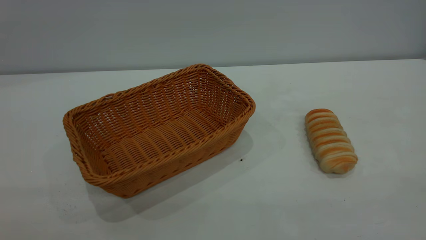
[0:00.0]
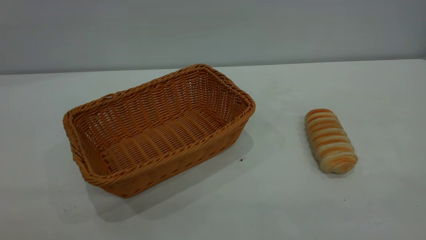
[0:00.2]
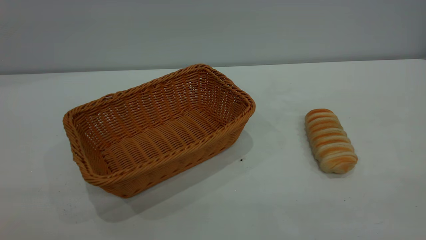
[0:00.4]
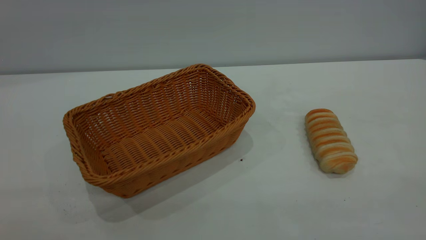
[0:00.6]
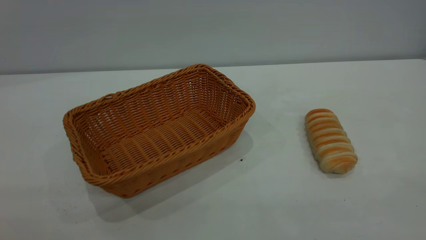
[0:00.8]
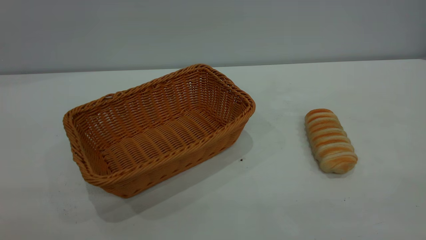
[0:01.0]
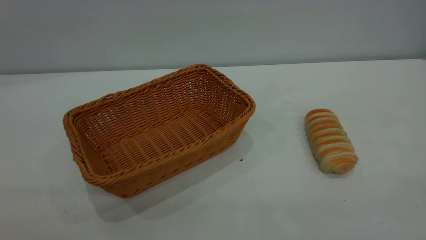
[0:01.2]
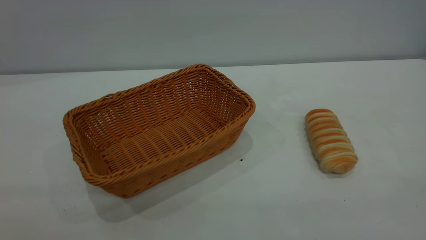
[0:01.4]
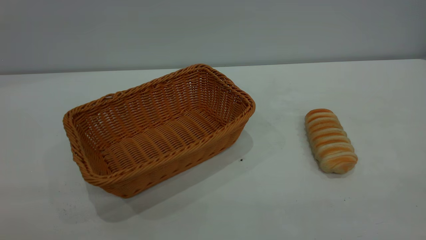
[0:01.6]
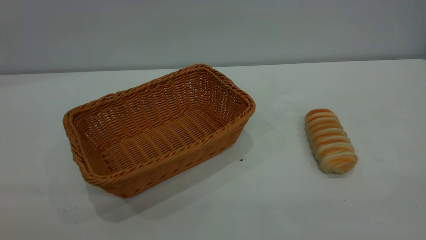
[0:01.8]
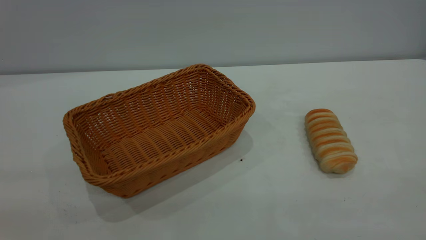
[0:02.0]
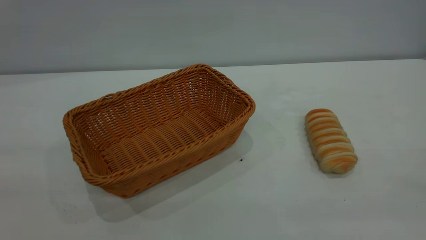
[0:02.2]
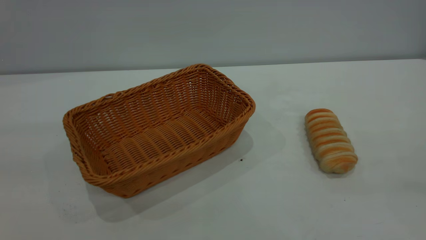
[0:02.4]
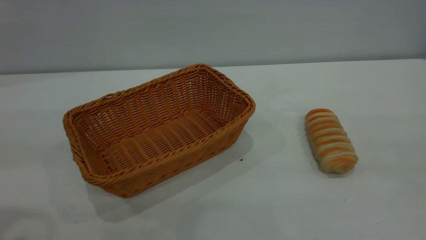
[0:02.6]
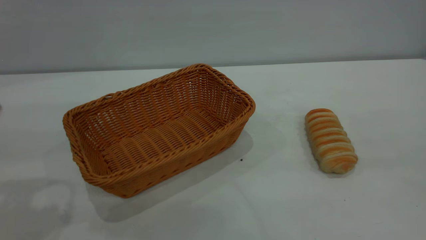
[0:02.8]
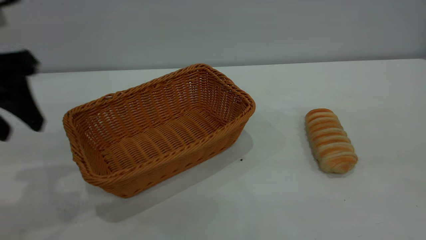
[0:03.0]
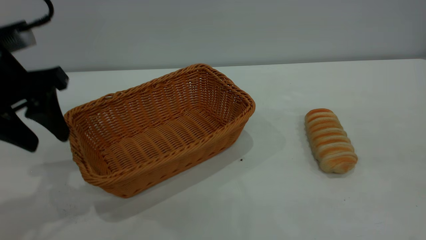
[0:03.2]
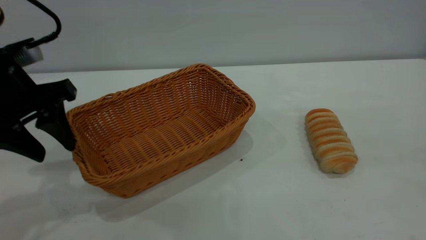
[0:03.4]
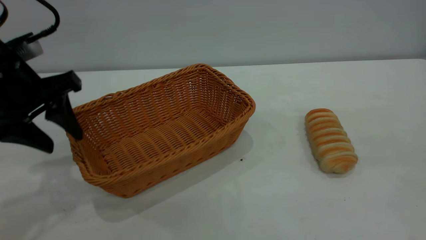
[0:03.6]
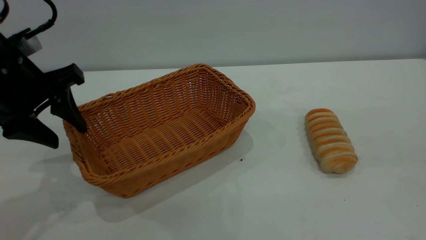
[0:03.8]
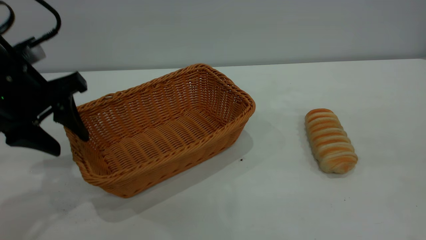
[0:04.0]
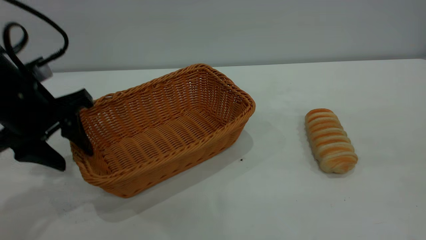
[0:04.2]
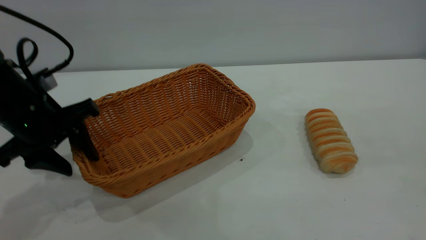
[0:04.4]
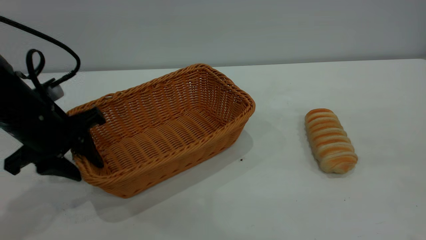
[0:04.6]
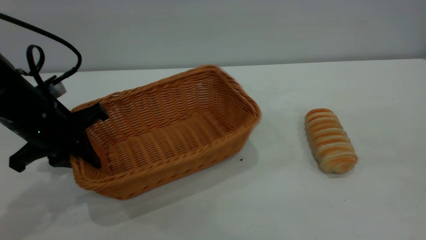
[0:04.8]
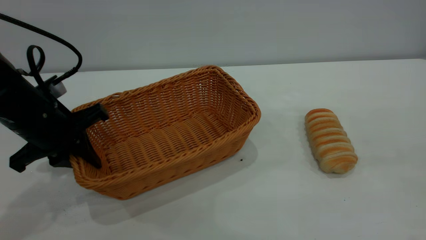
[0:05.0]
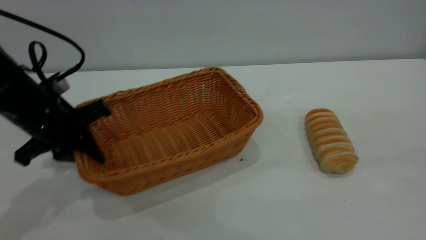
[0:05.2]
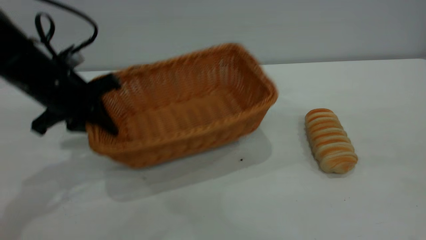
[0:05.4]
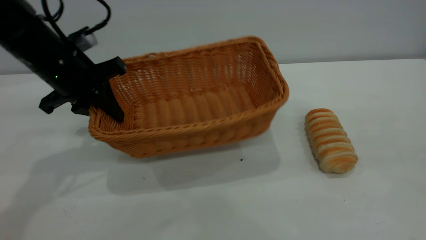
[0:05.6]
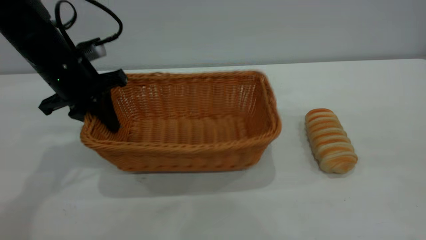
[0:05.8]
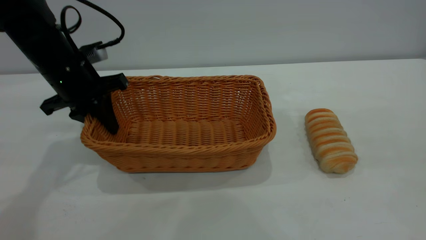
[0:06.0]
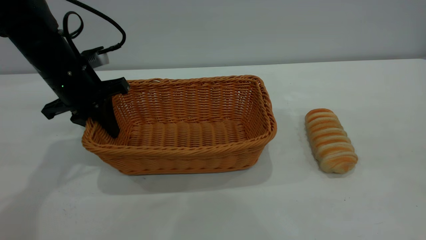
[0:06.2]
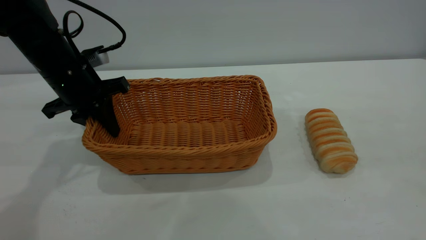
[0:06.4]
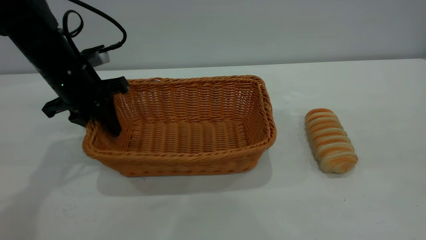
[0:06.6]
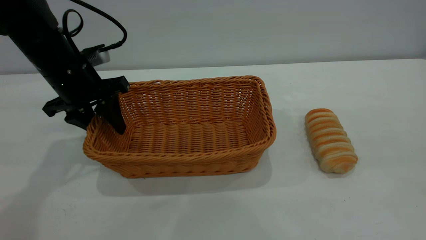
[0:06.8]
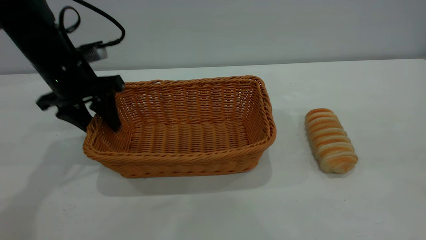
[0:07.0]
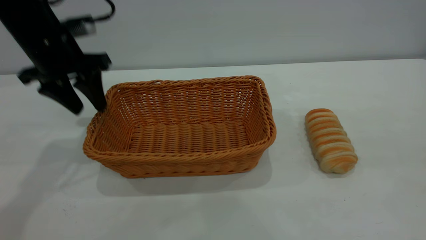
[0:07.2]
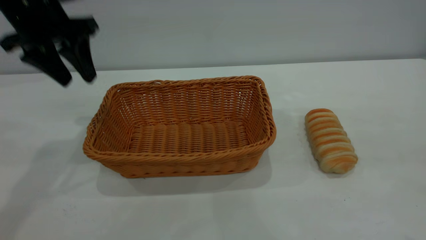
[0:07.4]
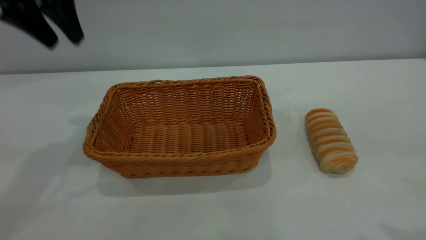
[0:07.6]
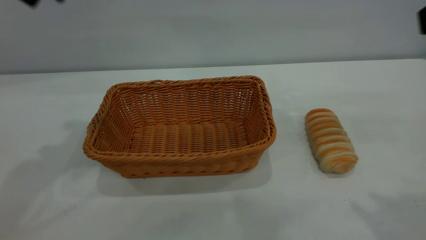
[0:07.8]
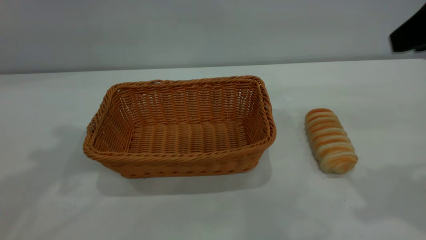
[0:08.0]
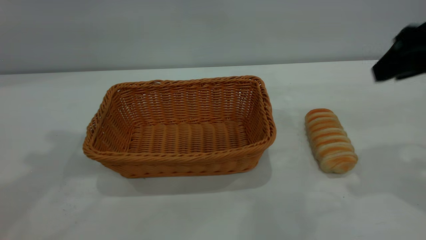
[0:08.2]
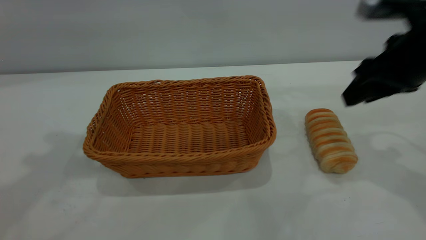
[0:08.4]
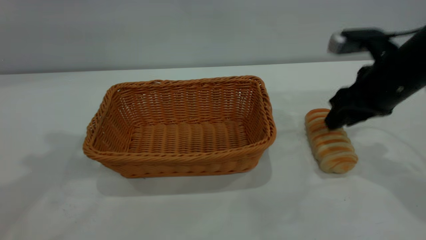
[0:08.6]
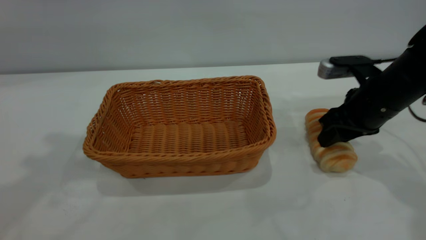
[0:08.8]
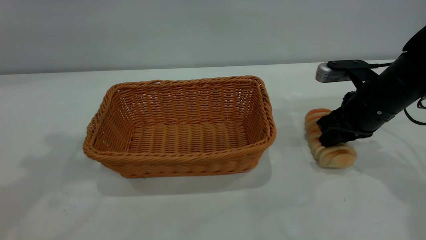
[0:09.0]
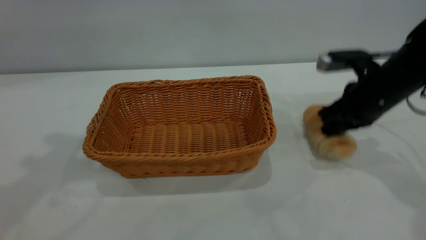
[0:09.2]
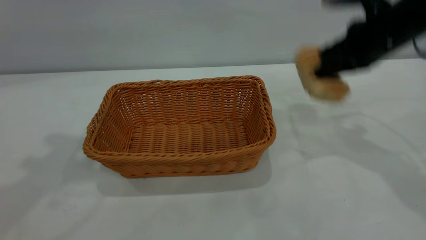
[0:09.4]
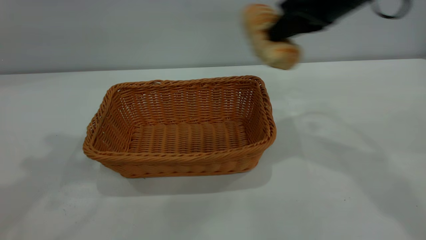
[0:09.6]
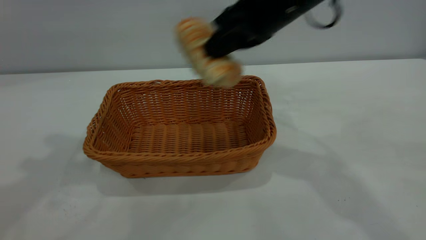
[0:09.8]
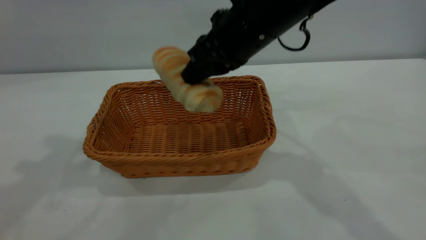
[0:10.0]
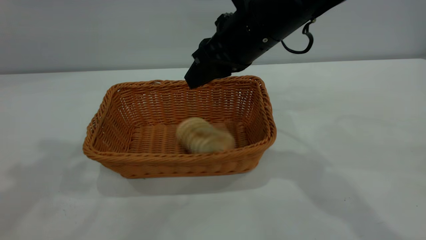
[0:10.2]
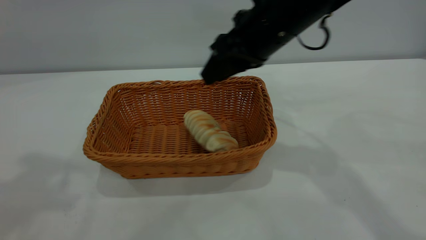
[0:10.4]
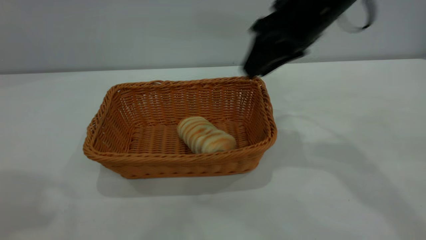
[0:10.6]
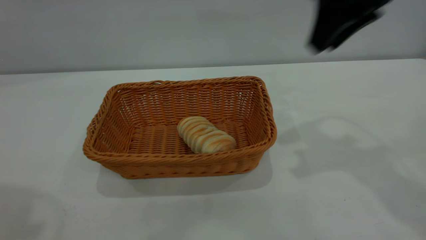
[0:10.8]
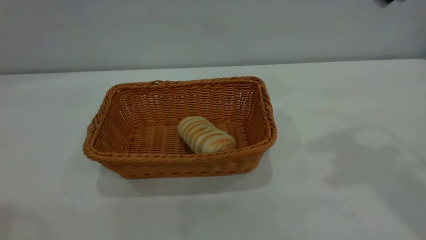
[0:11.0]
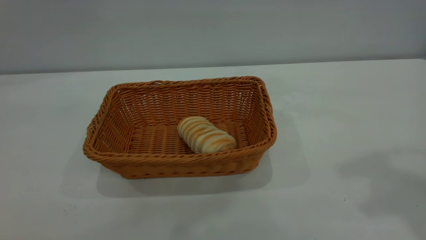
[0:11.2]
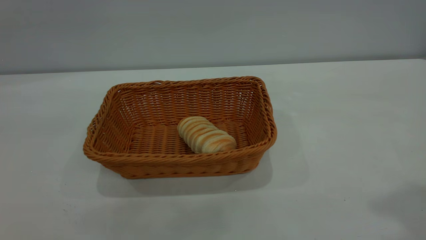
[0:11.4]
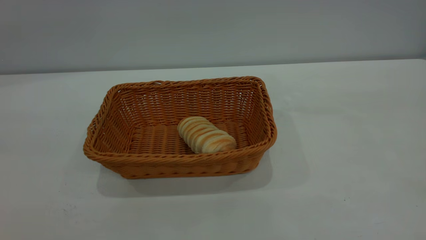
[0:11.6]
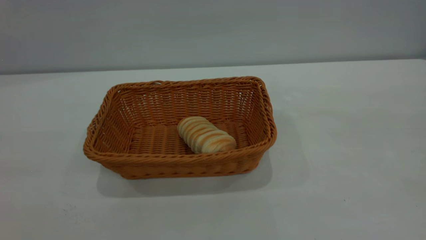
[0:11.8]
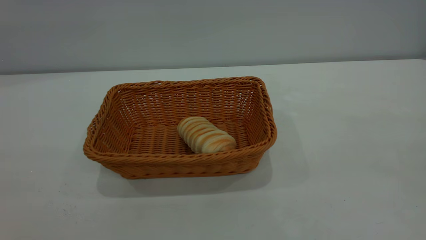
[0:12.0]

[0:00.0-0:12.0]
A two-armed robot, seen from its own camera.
Task of the whole recording: One hand grasps the yellow basket and places it in the middle of the table, while the other hand picks up the long bread and puts it into the yellow basket.
Step, 0:00.0 to 0:07.2: Move the basket to the center of view.
Step, 0:09.6 to 0:10.6: place the bread into the basket.
0:00.0 to 0:01.6: The two grippers keep their place.
0:01.6 to 0:03.0: The left gripper moves forward, about 30 cm.
0:03.0 to 0:04.4: The left gripper travels downward by some 10 cm.
0:04.4 to 0:06.0: The left gripper is displaced forward by about 10 cm, and closes its fingers.
0:06.0 to 0:07.6: The left gripper goes about 20 cm upward, and opens.
0:07.6 to 0:09.0: The left gripper travels upward and backward by approximately 10 cm. Meanwhile the right gripper goes some 35 cm downward and forward, and closes up.
0:09.0 to 0:10.4: The left gripper shifts about 5 cm backward. The right gripper moves to the left and upward, roughly 20 cm, and opens.
0:10.4 to 0:12.0: The right gripper shifts about 50 cm backward, upward and to the right; the left gripper shifts roughly 30 cm backward.

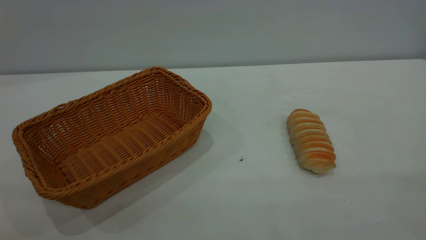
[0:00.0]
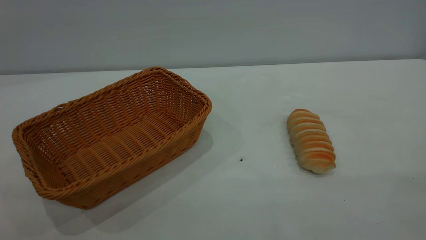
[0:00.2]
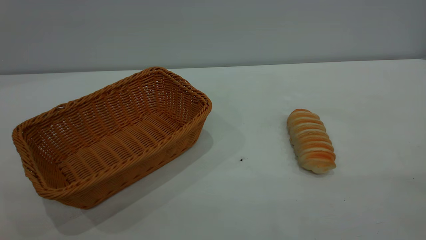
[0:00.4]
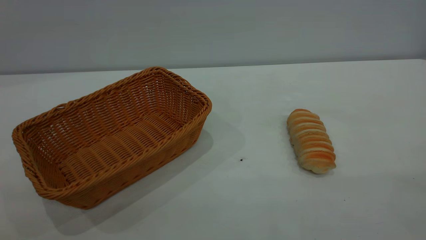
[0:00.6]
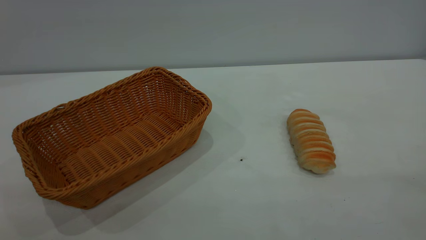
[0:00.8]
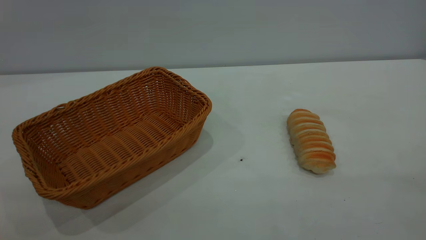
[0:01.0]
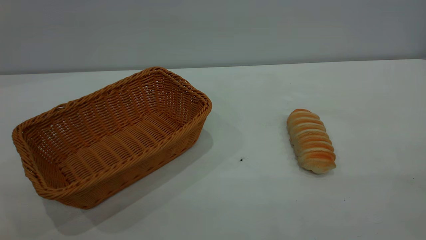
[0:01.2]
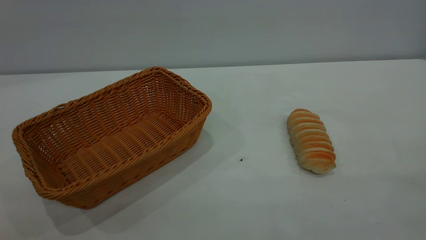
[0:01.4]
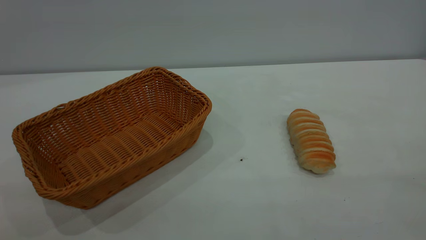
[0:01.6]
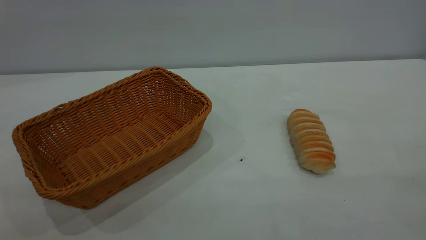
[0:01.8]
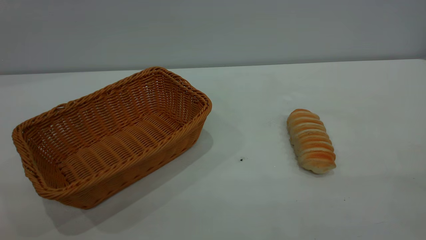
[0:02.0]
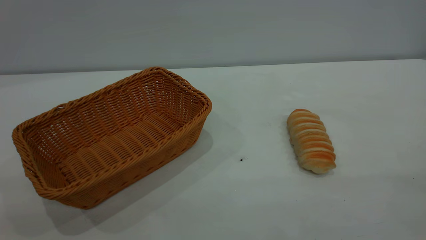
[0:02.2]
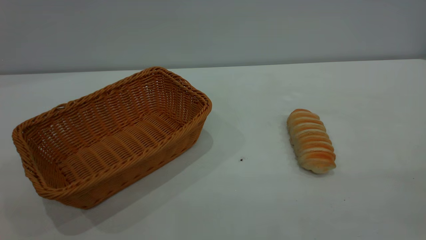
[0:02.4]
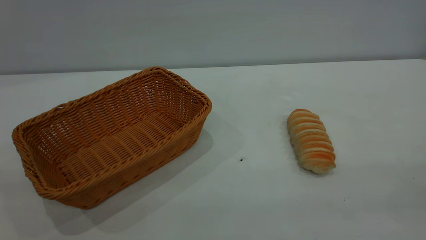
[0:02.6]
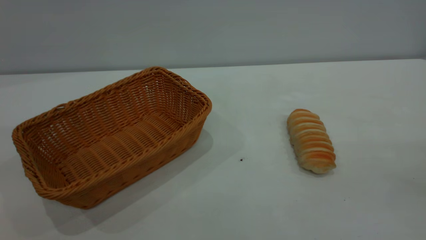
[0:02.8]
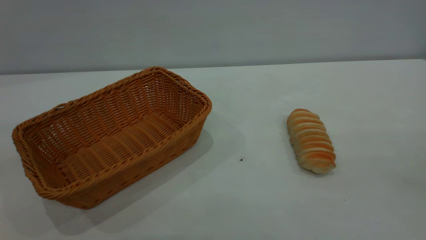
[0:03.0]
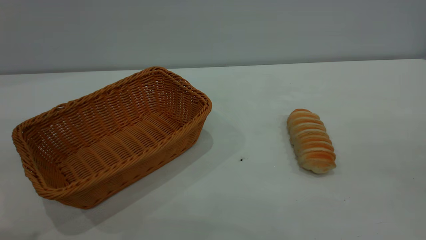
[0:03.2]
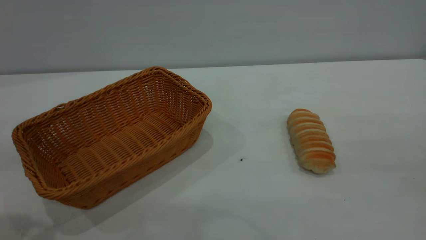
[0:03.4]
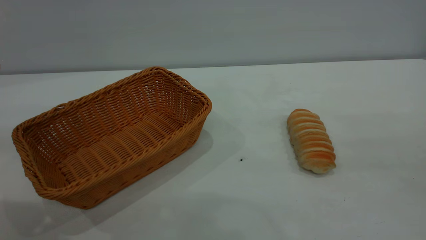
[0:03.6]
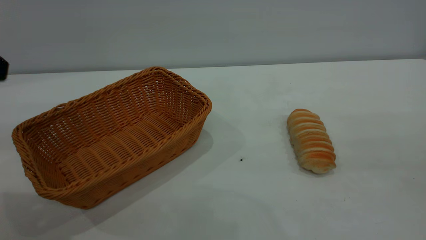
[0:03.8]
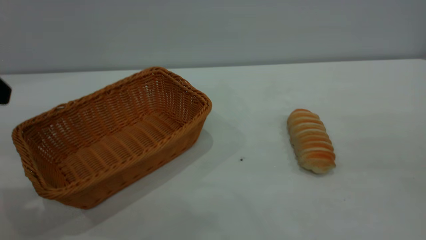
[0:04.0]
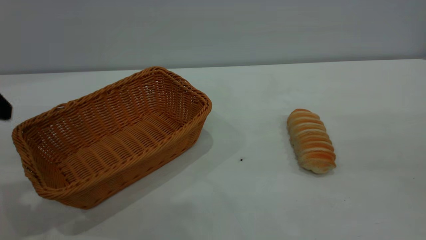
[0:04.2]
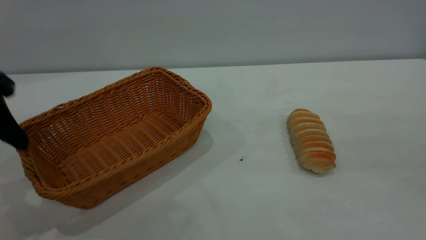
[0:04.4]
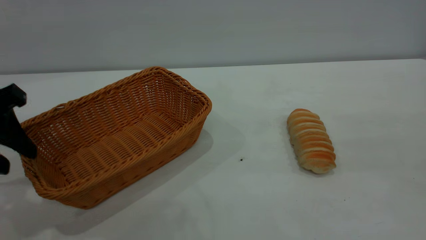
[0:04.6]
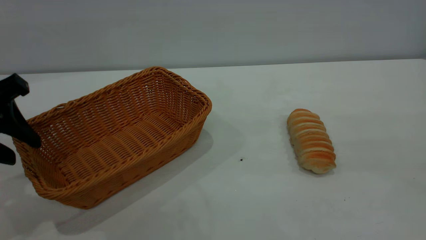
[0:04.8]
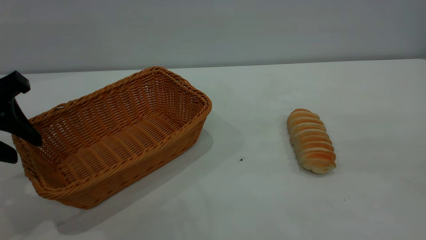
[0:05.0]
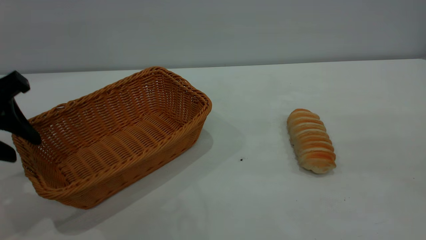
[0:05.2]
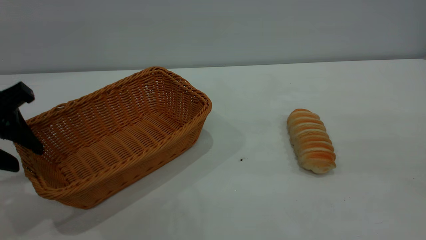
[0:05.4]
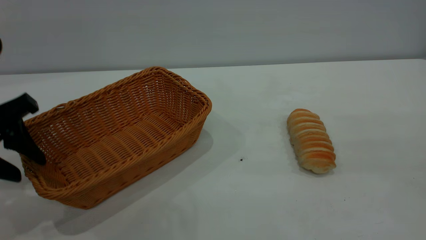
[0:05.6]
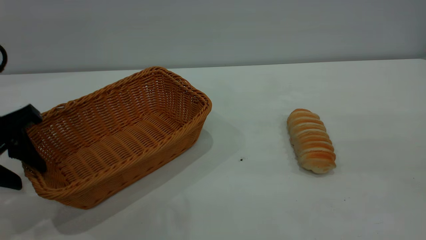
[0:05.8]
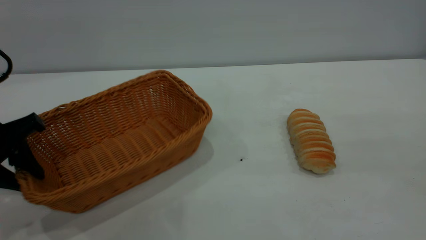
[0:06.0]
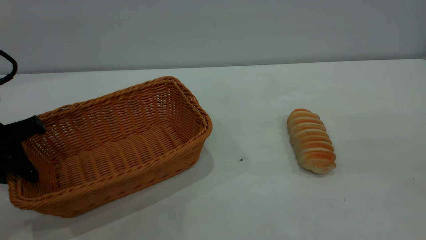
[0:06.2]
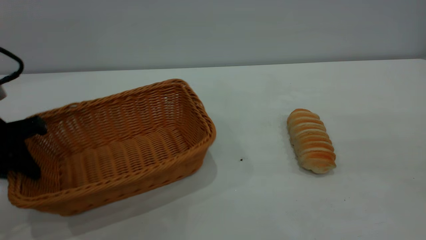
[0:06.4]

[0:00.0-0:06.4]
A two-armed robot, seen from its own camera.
Task of the whole recording: One hand grasps the yellow basket and places it in the middle of the table, while the other hand picks up the long bread and puts it into the yellow basket.
0:00.0 to 0:01.6: The two grippers keep their place.
0:03.2 to 0:04.8: The left gripper goes about 15 cm downward and forward.
0:04.8 to 0:06.4: The left gripper shifts about 5 cm downward, and closes.
